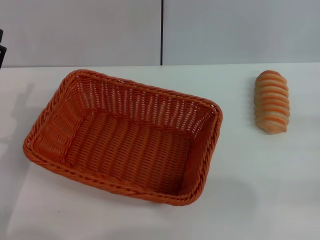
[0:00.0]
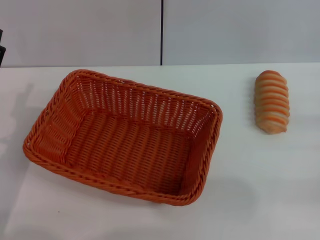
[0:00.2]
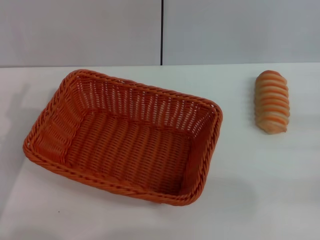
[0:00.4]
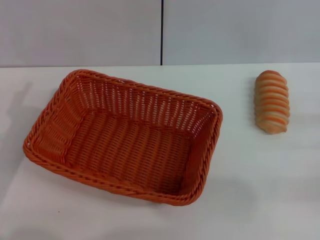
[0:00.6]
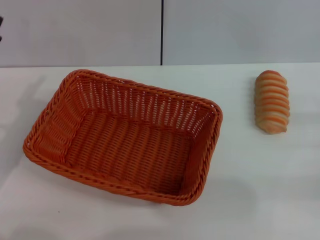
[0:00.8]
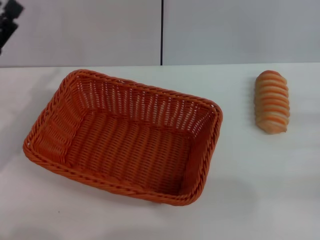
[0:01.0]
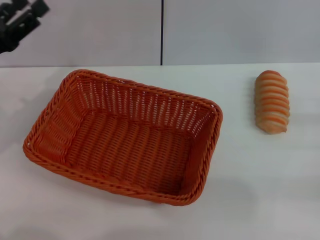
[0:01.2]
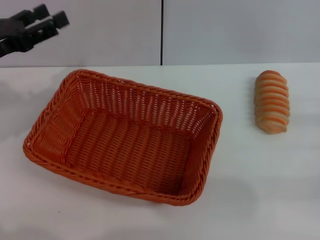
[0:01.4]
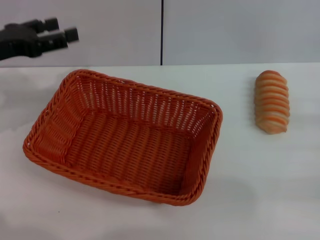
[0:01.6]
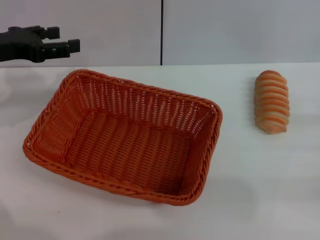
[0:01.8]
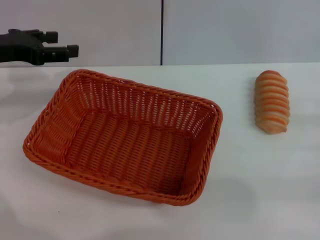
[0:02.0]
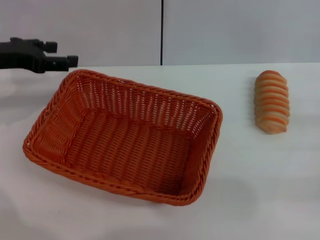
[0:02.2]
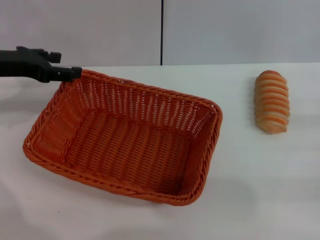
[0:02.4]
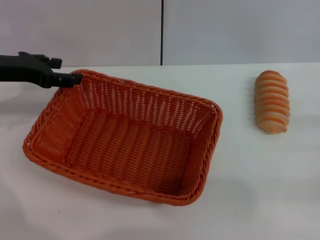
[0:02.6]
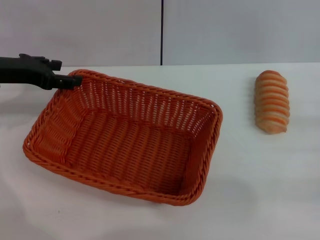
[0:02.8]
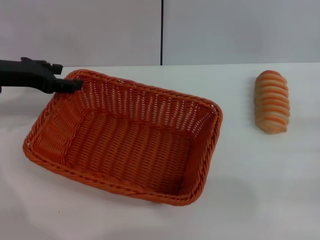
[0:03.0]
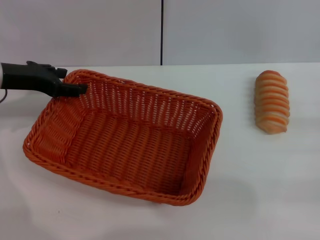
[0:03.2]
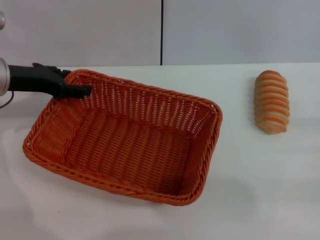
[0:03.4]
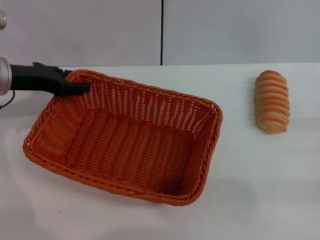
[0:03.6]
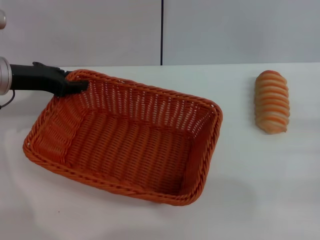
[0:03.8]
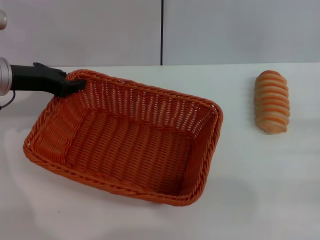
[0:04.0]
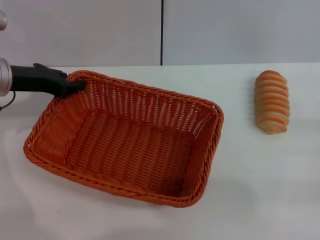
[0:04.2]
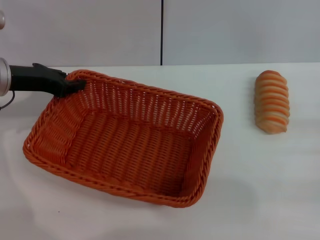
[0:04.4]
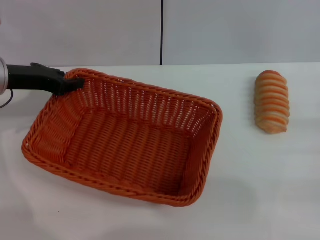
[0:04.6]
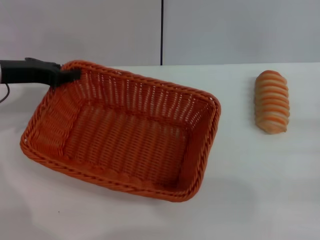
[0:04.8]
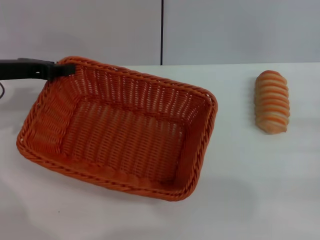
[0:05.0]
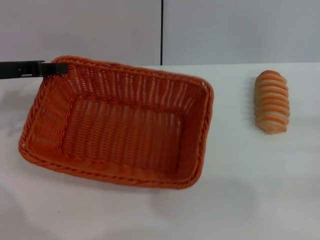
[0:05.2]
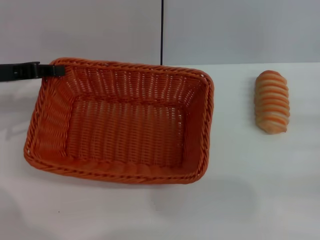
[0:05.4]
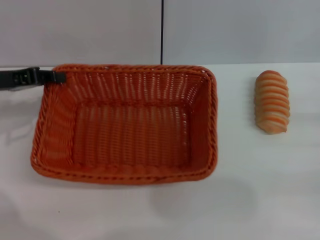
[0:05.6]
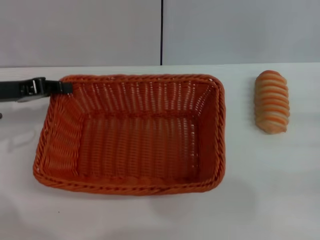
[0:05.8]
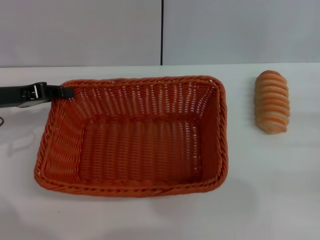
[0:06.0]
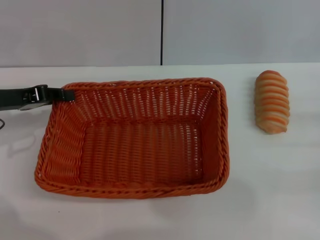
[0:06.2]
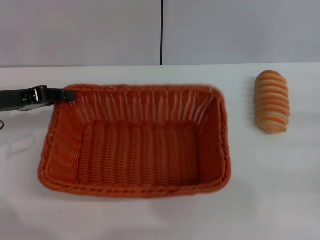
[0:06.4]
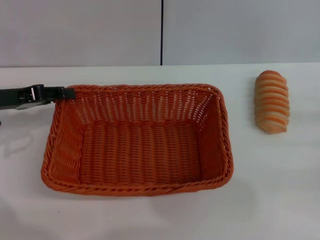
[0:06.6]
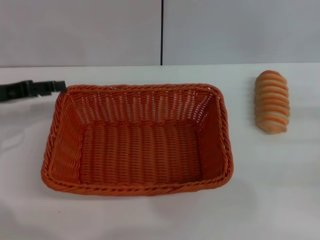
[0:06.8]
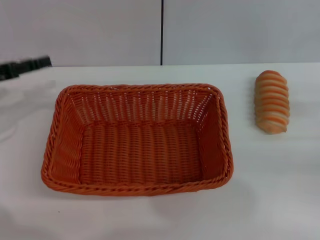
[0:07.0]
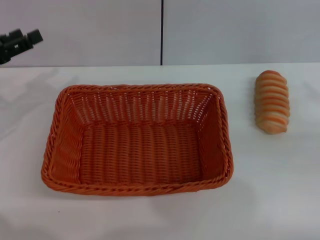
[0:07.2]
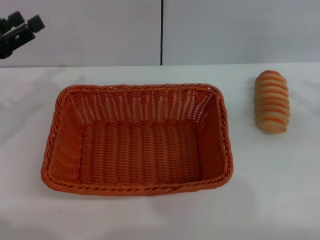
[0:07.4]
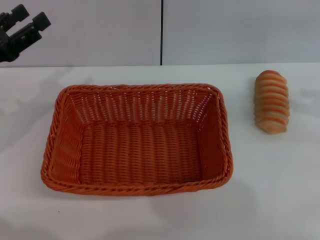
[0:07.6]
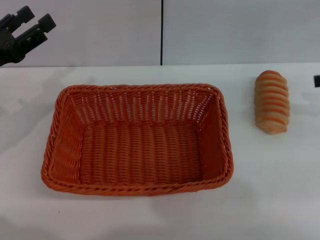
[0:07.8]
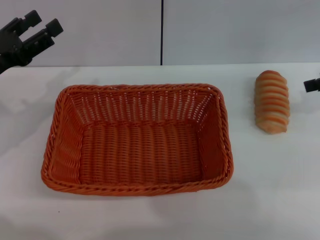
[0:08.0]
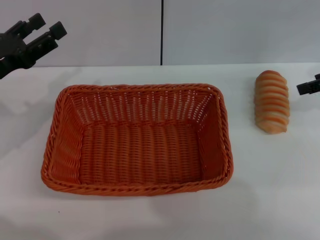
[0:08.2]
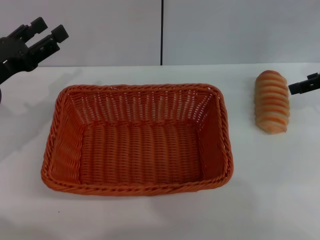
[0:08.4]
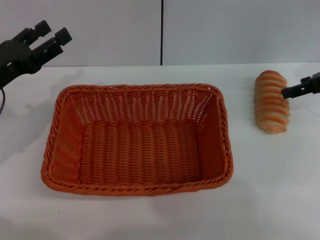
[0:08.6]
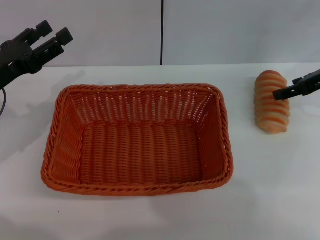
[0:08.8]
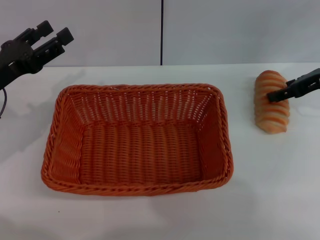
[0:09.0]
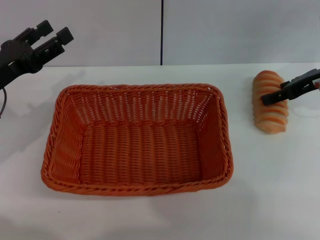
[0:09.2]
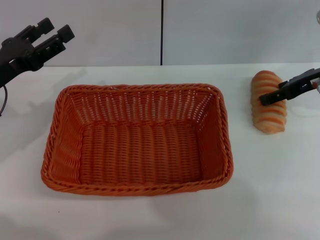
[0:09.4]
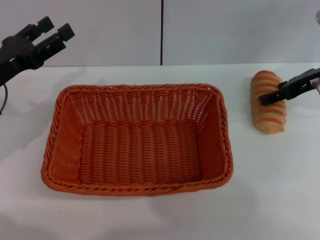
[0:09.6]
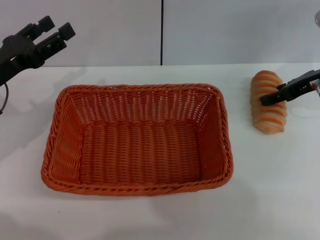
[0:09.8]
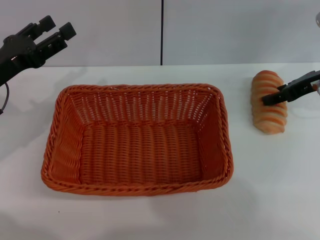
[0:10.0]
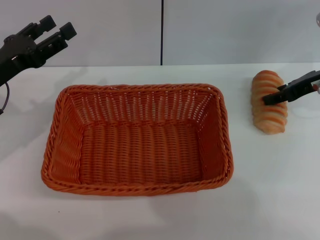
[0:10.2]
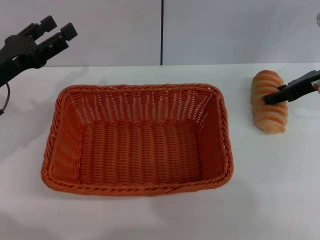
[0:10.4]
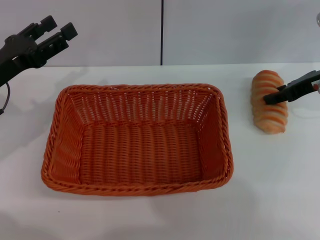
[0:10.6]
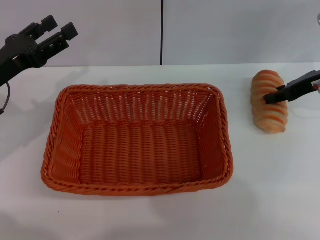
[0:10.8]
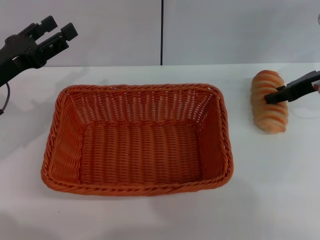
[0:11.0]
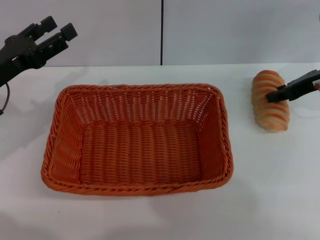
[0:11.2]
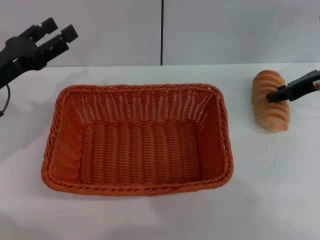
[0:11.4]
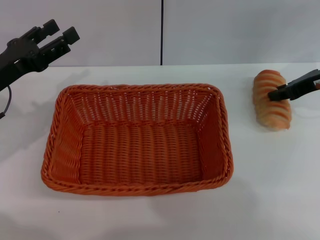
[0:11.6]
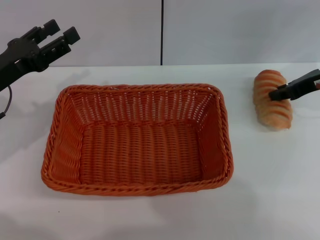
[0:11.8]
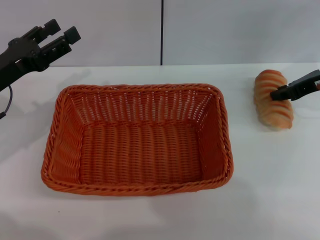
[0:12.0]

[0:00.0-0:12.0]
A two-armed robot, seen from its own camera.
Step, 0:00.0 to 0:06.0: Pick up the light basket with the left gripper.
Step, 0:06.2 to 0:07.4: Place the light basket in the center of view with the left gripper.
0:00.0 to 0:01.6: The left gripper moves forward and upward, approximately 15 cm.
0:03.0 to 0:04.4: The left gripper closes.
0:04.4 to 0:06.0: The left gripper moves some 5 cm.
0:06.0 to 0:07.6: The left gripper opens. Meanwhile the right gripper travels upward and forward by roughly 15 cm.
0:07.6 to 0:09.0: The right gripper travels to the left and forward by about 15 cm.
0:09.0 to 0:10.4: The grippers stay close to where they were, moving slightly.
0:10.4 to 0:12.0: The right gripper closes up.

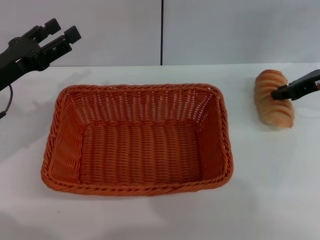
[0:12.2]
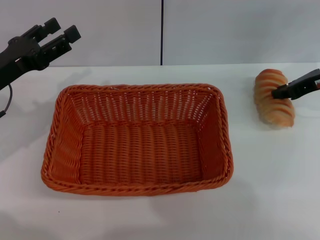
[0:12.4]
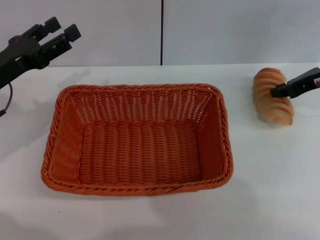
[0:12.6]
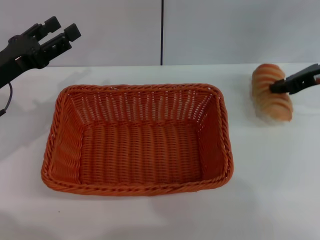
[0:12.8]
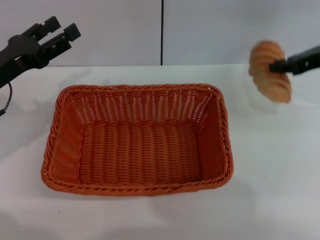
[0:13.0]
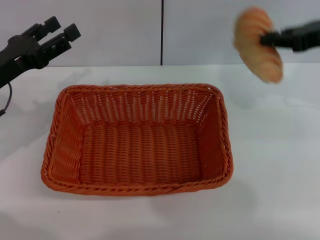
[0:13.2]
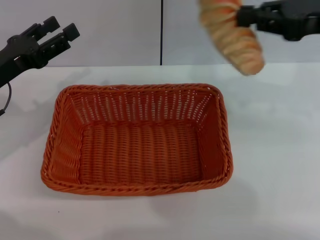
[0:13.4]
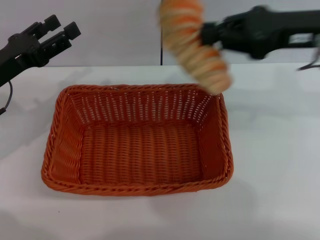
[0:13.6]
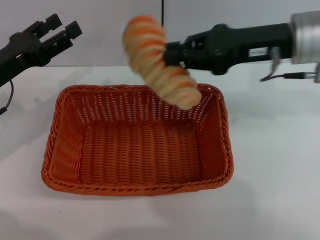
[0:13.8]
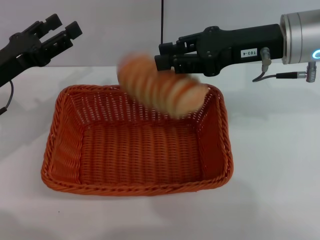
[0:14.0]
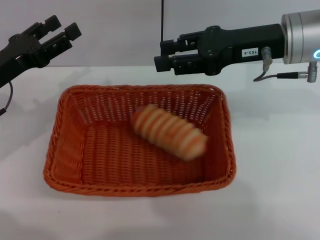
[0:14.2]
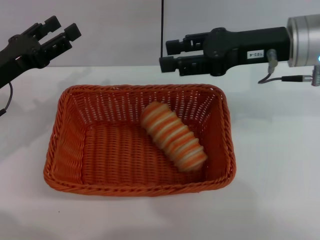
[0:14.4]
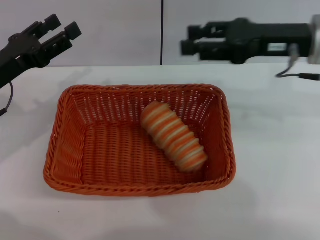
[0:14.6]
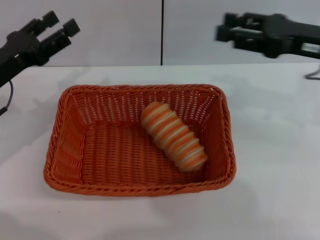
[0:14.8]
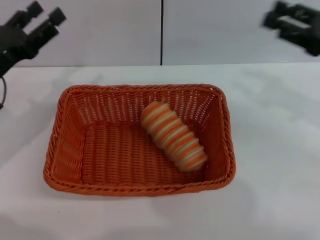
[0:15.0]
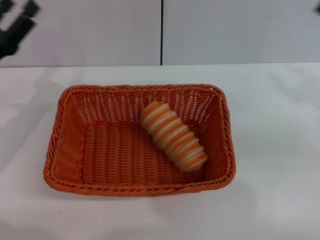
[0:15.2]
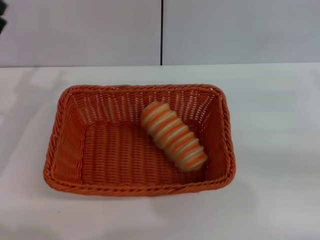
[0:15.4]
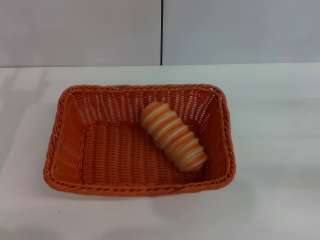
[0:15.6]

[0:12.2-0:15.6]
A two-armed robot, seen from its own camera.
Step, 0:13.4 to 0:14.4: Place the long bread into the light basket with the right gripper.
0:12.2 to 0:13.8: The right gripper travels to the left and upward by about 15 cm.
0:13.8 to 0:15.6: The right gripper heads to the right, backward and downward, covering approximately 25 cm, and opens; the left gripper shifts by roughly 5 cm.

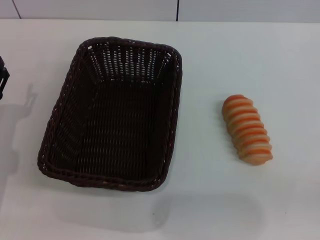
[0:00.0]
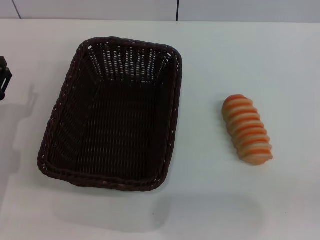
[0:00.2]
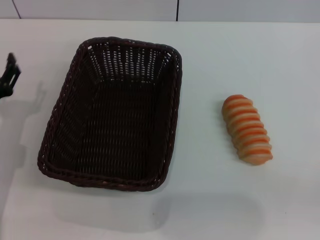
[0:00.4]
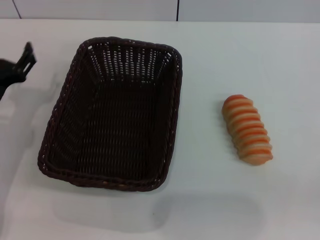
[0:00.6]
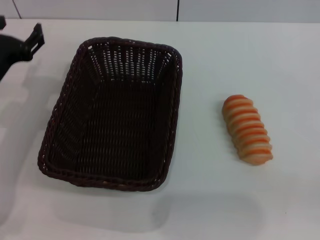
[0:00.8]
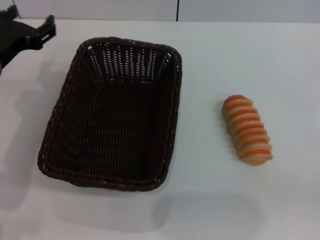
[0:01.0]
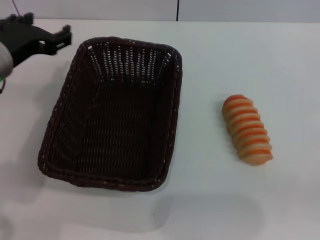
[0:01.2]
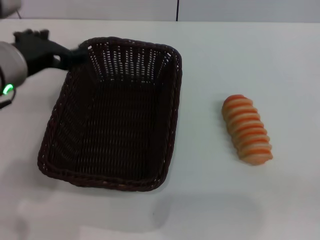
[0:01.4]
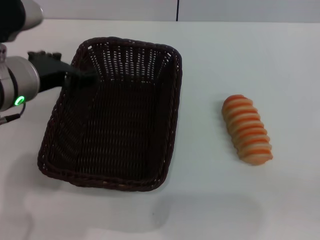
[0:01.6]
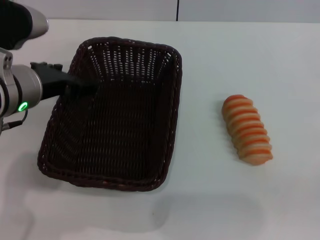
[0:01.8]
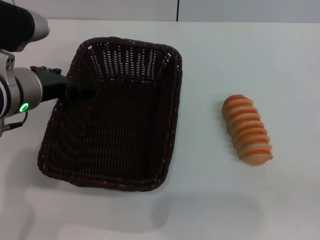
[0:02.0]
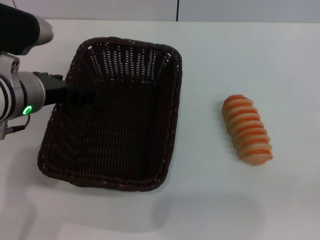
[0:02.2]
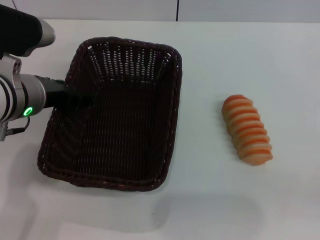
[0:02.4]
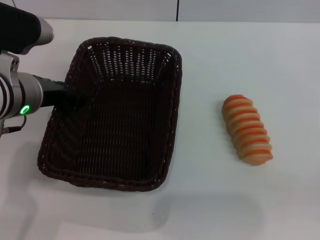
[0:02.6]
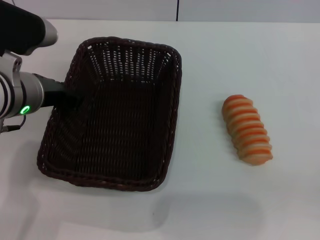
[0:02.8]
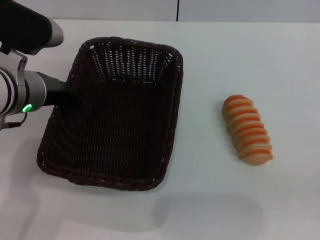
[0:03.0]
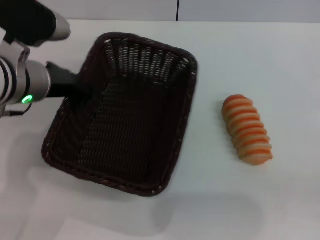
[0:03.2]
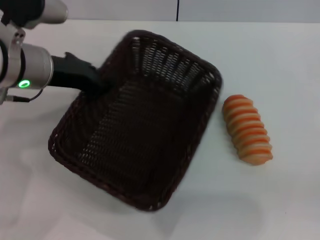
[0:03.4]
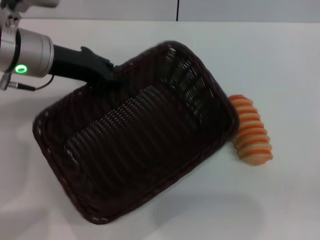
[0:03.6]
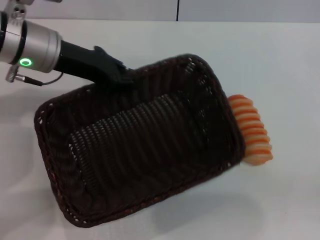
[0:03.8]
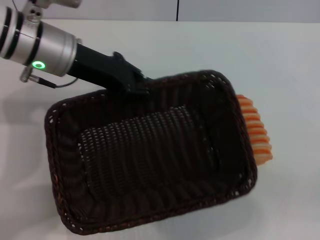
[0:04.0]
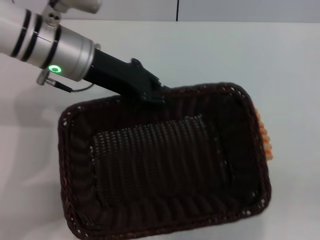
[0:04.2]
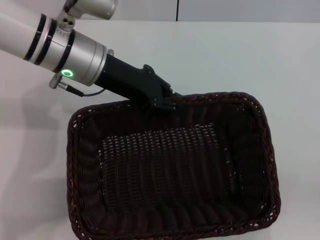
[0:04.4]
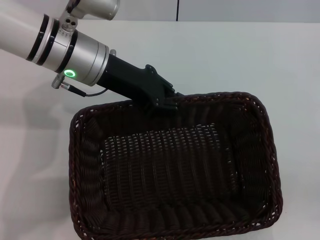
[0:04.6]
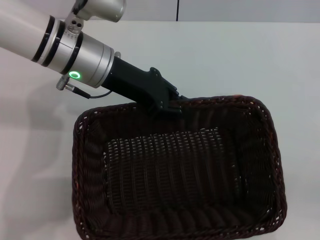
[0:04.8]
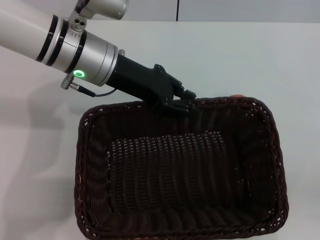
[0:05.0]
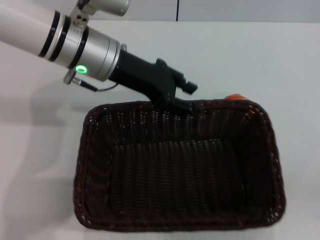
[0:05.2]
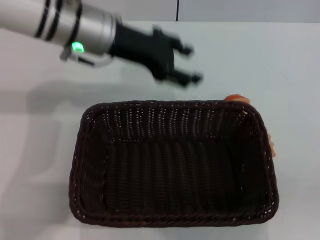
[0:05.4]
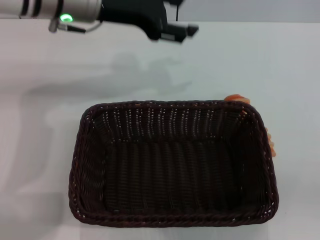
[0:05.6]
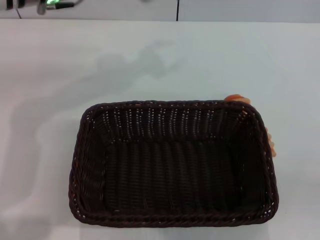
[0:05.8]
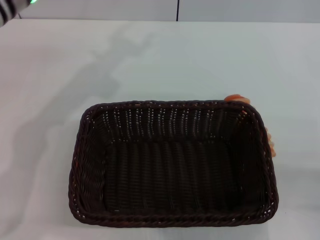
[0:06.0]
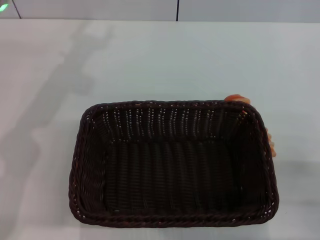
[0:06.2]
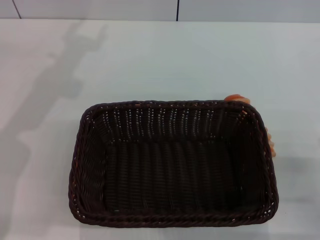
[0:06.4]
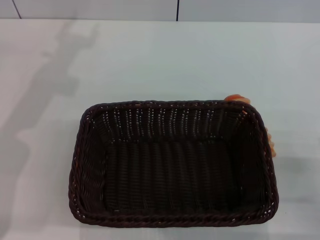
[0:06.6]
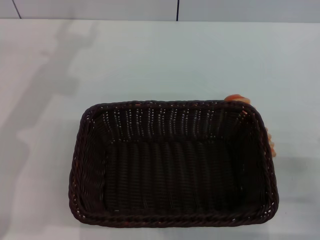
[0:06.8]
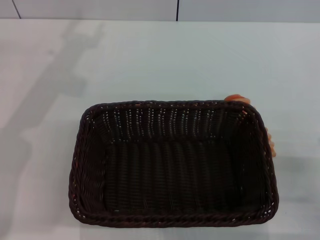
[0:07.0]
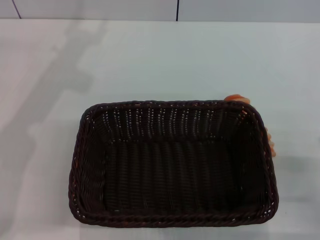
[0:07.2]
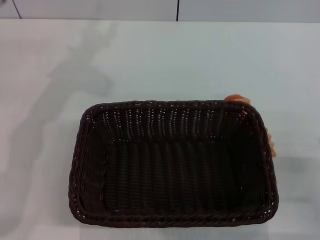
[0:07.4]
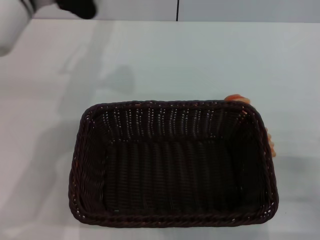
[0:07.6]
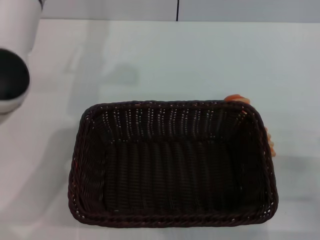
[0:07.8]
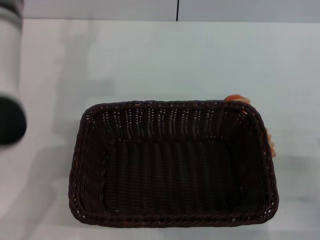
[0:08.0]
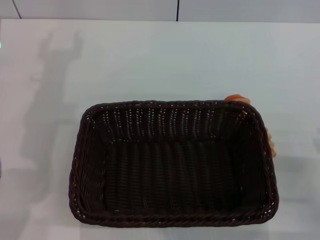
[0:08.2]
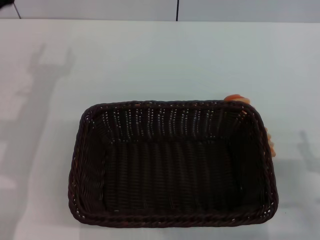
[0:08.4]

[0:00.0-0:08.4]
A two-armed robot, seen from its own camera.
Step, 0:00.0 to 0:03.4: Pick up the dark basket with the left gripper.
Step, 0:03.6 to 0:05.2: Place the dark basket in the center of view with the left gripper.
0:00.0 to 0:01.4: The left gripper travels upward and to the right by approximately 20 cm.
0:01.4 to 0:02.8: The left gripper closes up.
0:02.8 to 0:04.2: The left gripper shifts roughly 5 cm forward, and closes its fingers.
0:04.2 to 0:05.6: The left gripper moves about 5 cm, and opens its fingers.
0:05.6 to 0:07.0: The right gripper shifts by roughly 5 cm, while the left gripper travels to the left by about 10 cm.
